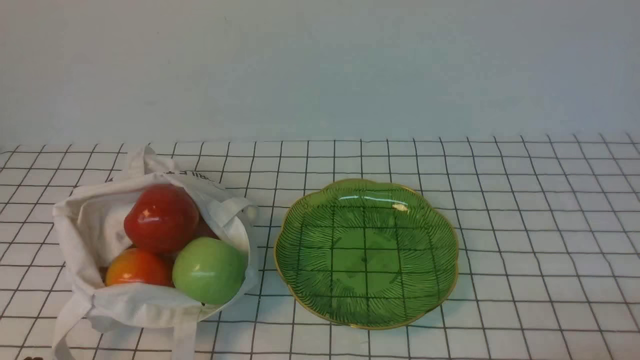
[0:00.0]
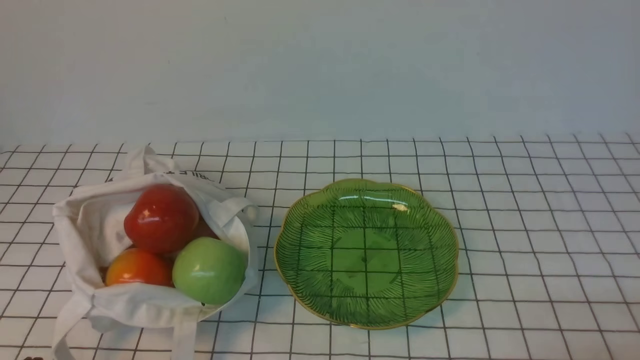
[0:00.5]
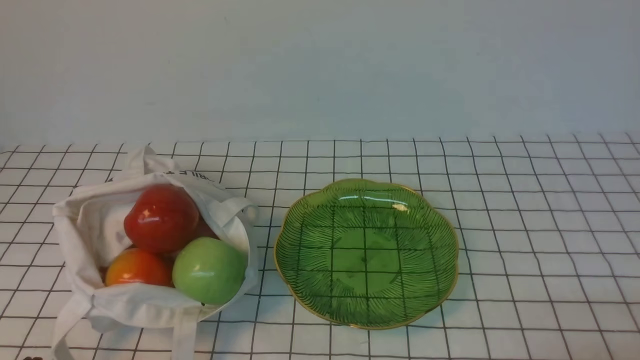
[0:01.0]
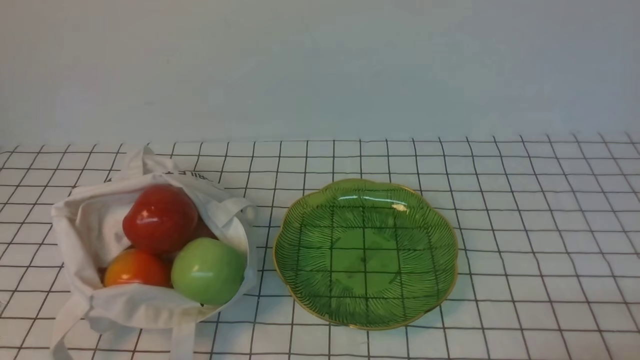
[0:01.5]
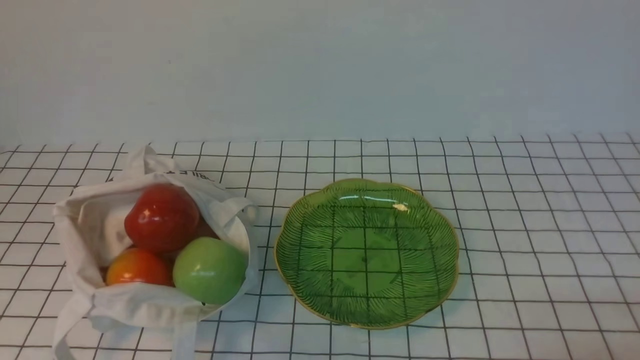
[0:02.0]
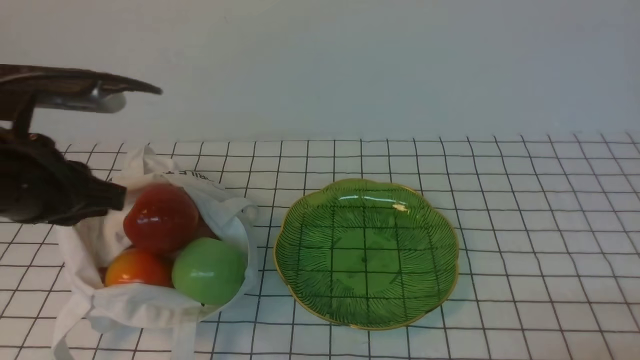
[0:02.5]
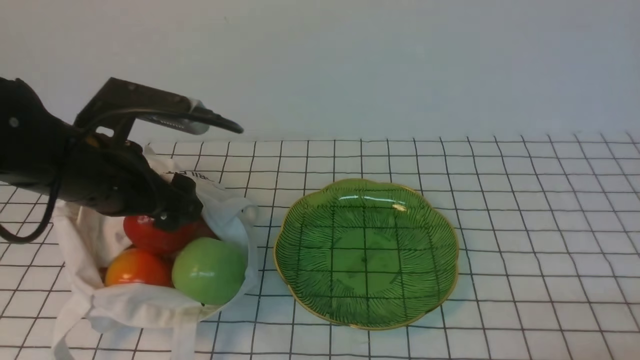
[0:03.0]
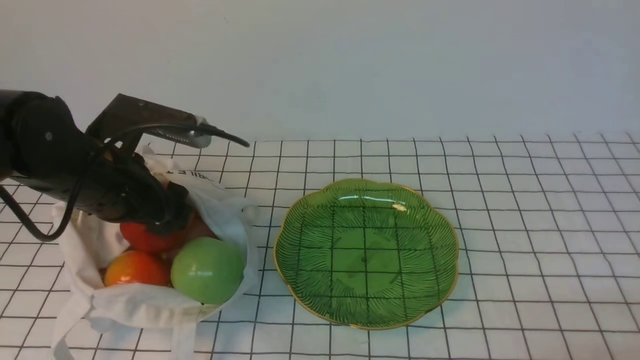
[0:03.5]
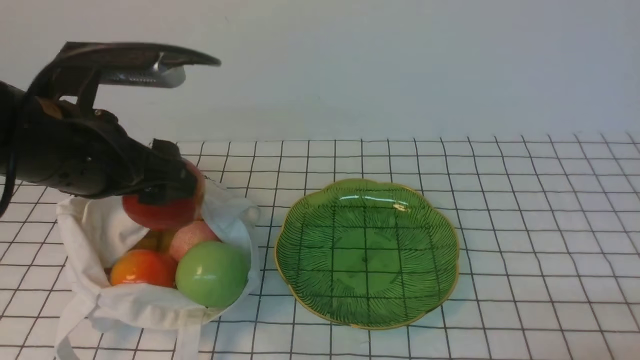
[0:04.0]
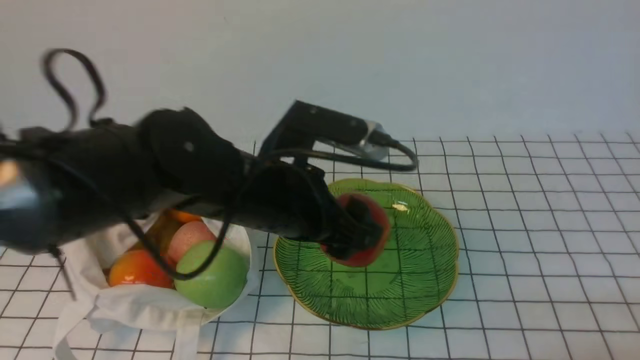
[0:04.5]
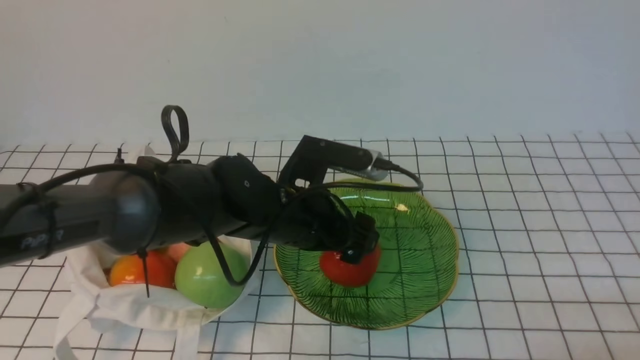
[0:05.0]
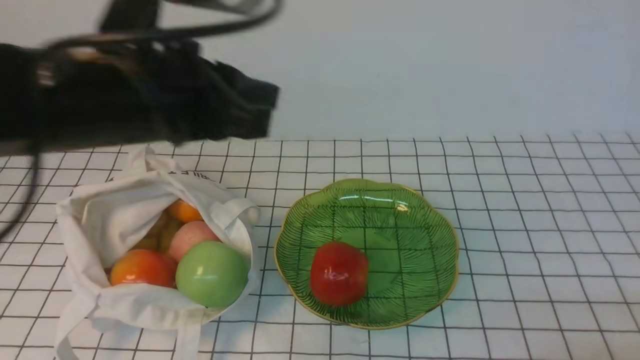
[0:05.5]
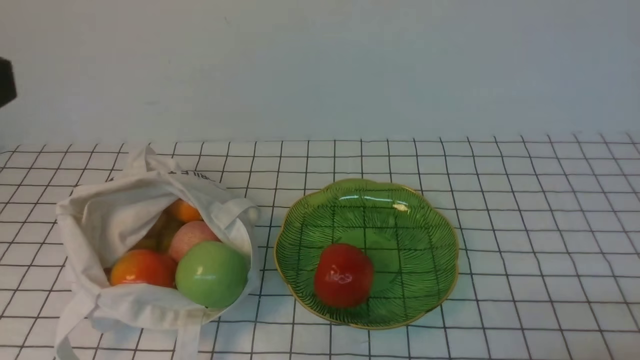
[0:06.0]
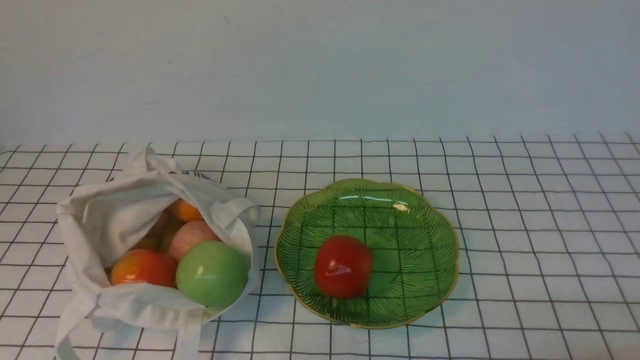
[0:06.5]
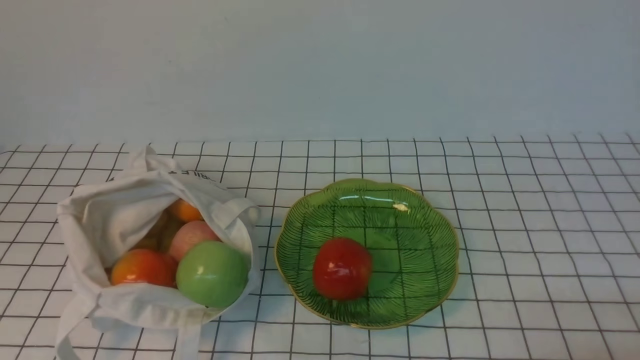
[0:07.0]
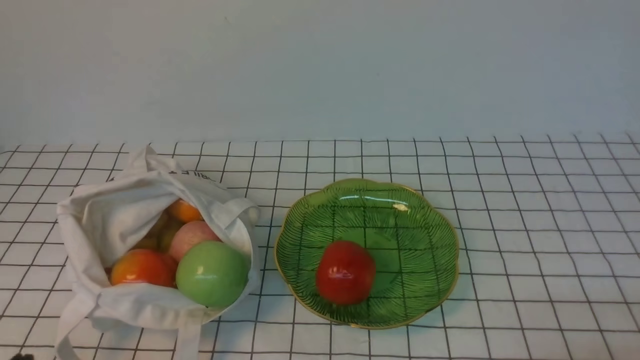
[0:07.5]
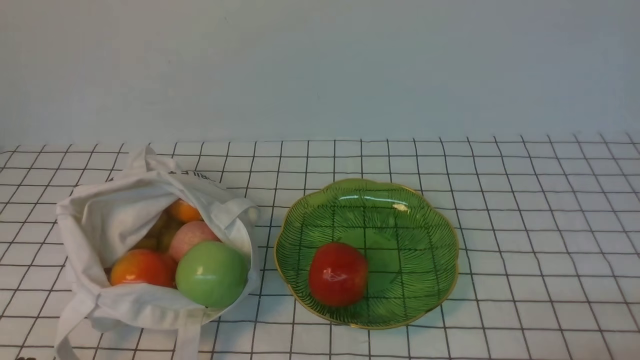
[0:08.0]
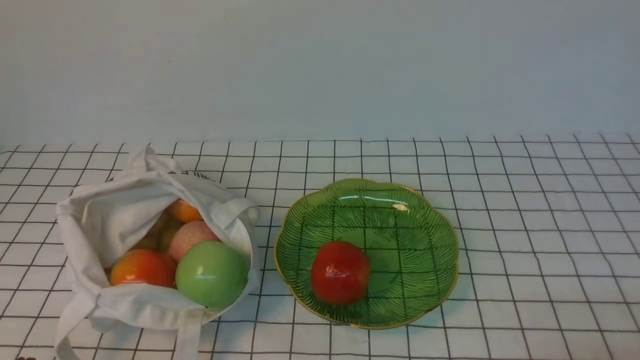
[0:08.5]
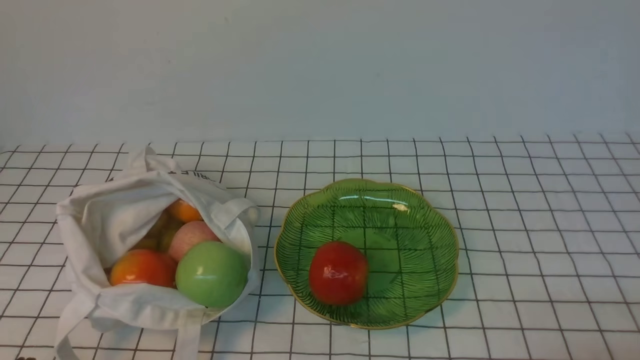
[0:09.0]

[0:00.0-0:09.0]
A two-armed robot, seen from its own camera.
Step, 0:00.0 to 0:03.0: use the left arm to grab an apple from the bag.
Step, 0:03.5 to 0:05.0: use the left arm to put the apple into the empty plate on the right.
0:02.0 to 0:04.5: The left gripper travels to the right, forward and downward by approximately 25 cm, and opens up.
0:04.5 to 0:07.0: The left gripper is displaced backward and to the left by approximately 30 cm, and closes.

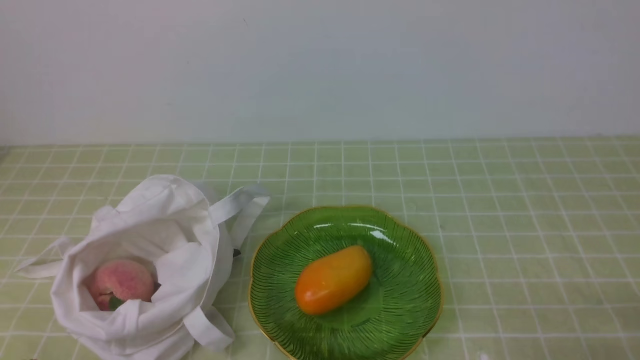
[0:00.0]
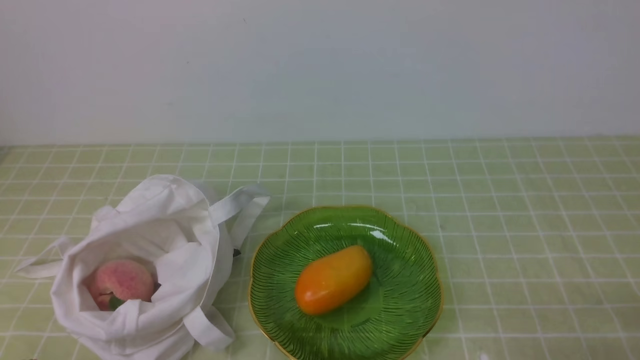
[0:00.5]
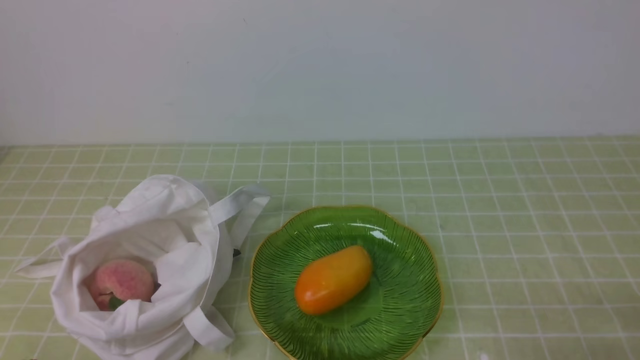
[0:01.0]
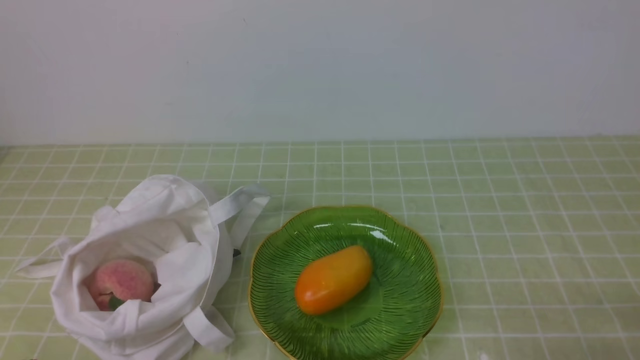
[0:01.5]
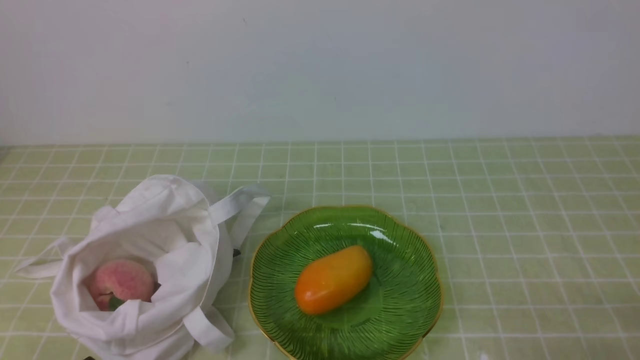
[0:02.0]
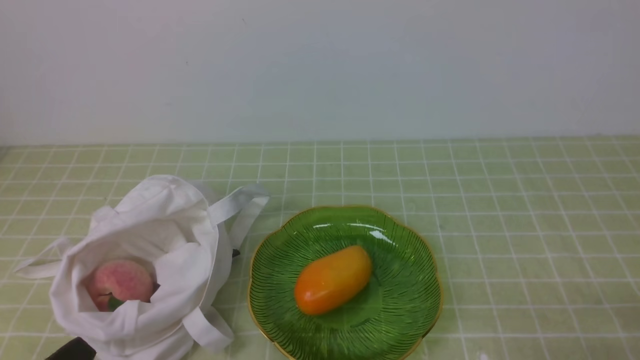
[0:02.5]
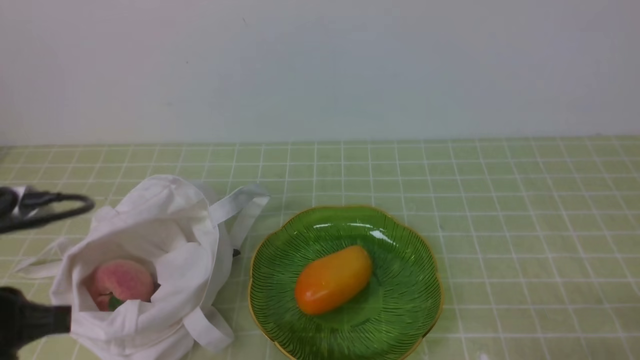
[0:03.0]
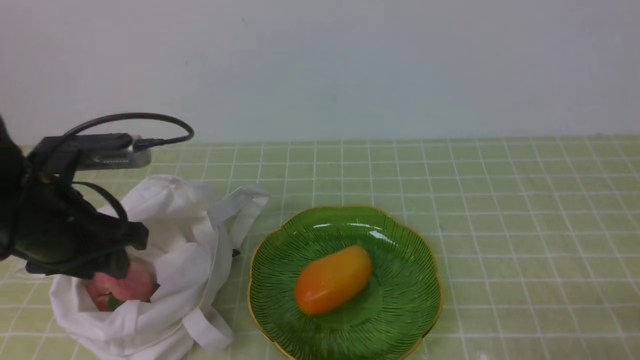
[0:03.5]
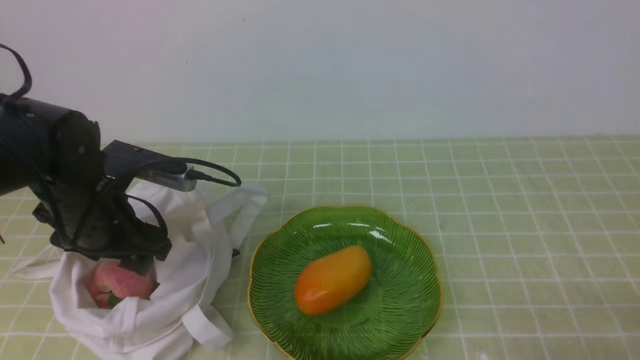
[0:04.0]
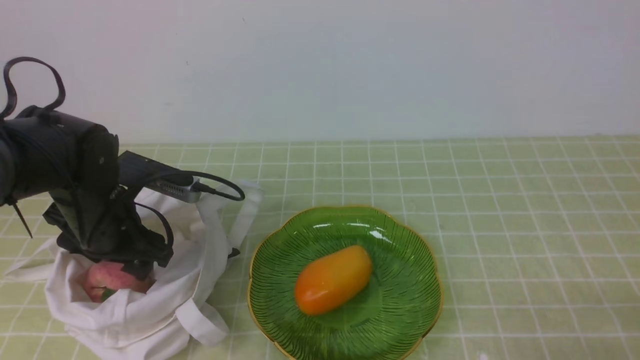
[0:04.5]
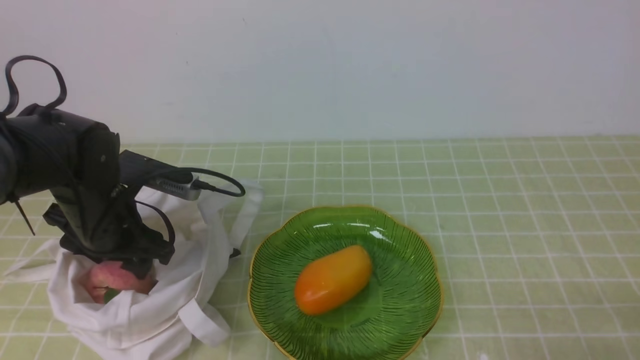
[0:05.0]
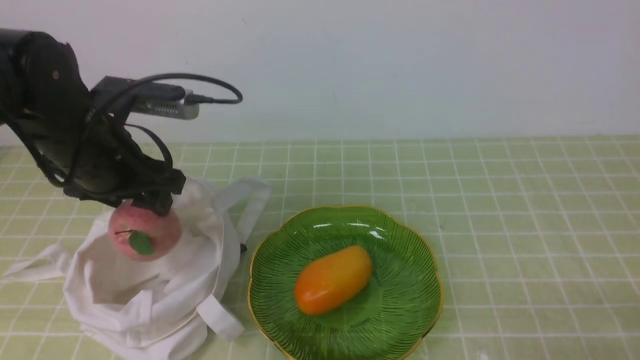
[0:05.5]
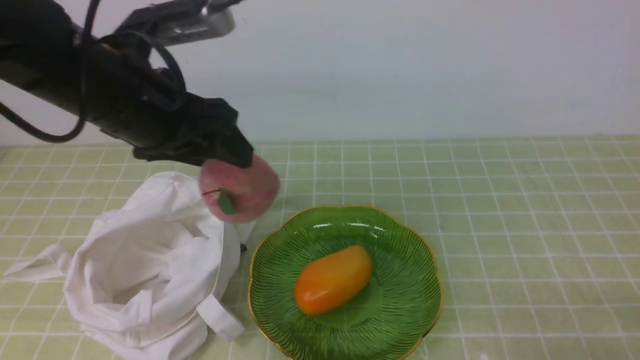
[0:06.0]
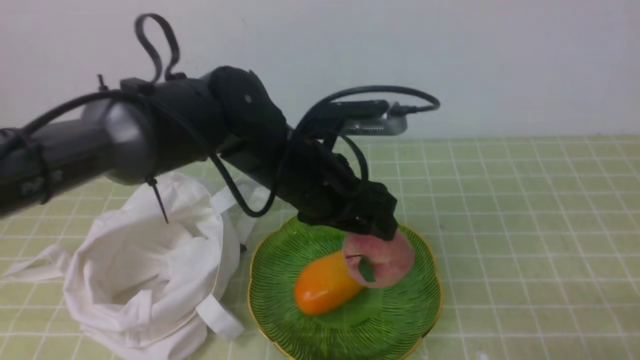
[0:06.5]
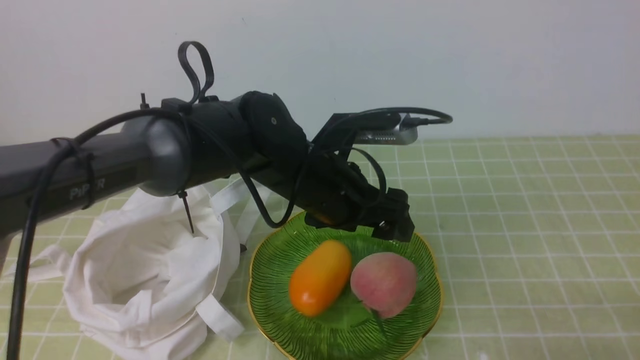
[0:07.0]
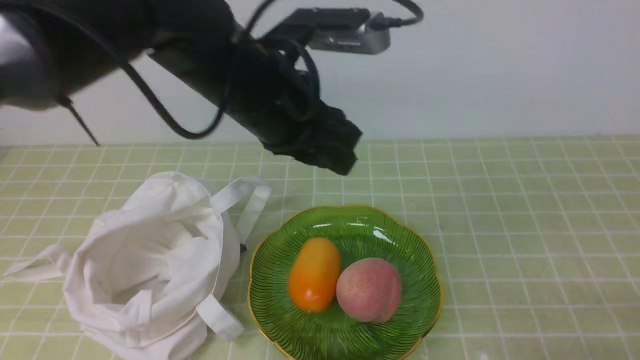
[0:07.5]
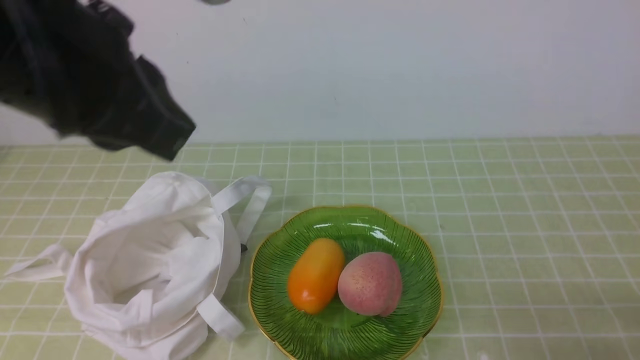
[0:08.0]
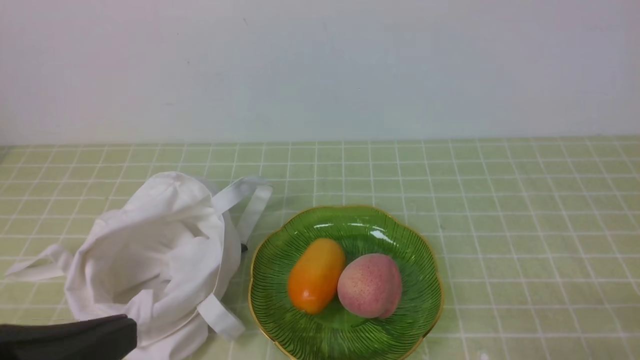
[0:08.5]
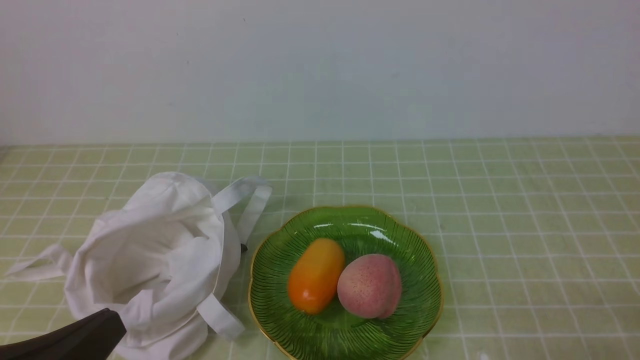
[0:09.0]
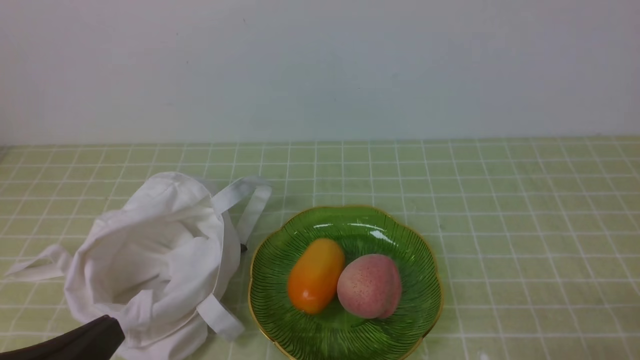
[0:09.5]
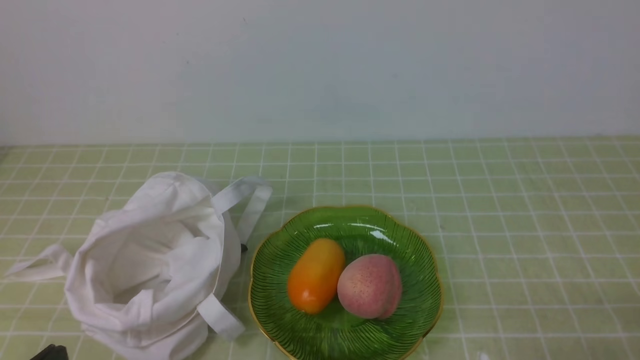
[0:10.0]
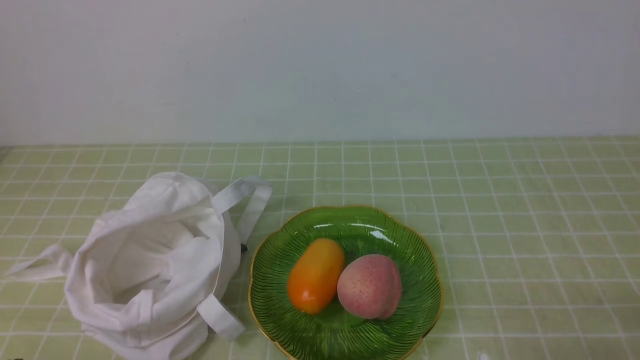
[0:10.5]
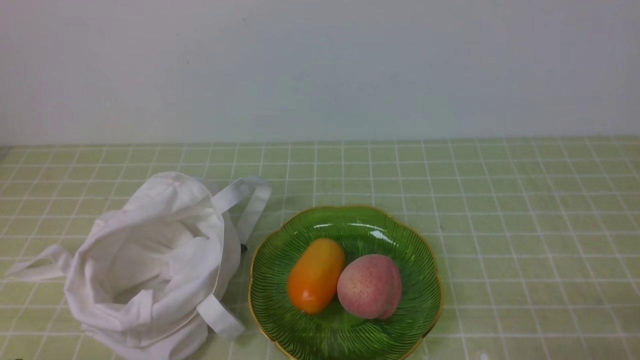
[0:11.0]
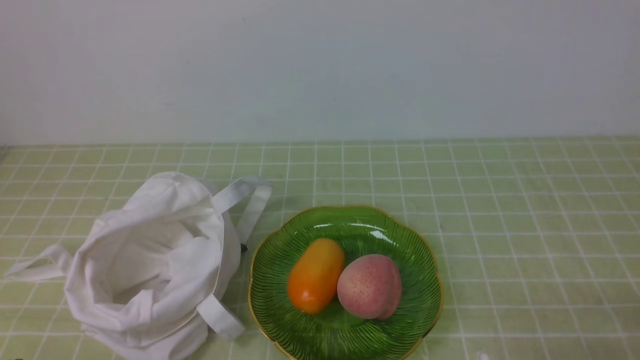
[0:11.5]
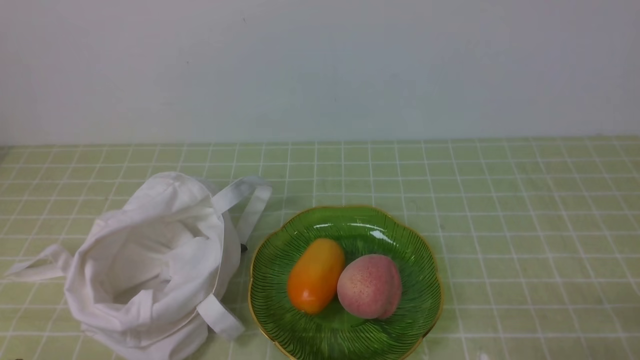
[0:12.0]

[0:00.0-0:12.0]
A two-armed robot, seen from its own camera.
Step, 0:00.0 to 0:05.5: use the left arm to grab a peach from the bag.
Step, 0:06.0 to 0:07.0: use the left arm to put the peach into the empty plate on the right.
0:02.0 to 0:04.0: The left gripper is displaced forward by some 25 cm, and opens up.
0:04.0 to 0:06.0: The left gripper travels upward and to the right by some 15 cm.
0:06.0 to 0:08.0: The left gripper travels backward and upward by about 15 cm, and closes its fingers.
0:08.0 to 0:10.0: The left gripper heads downward and backward, covering some 30 cm.
